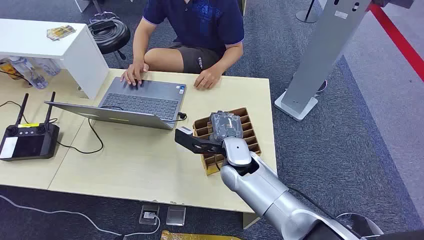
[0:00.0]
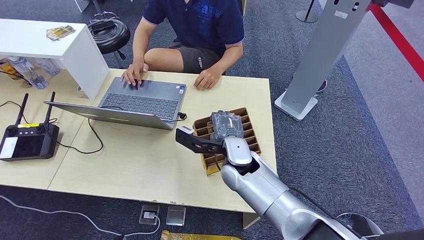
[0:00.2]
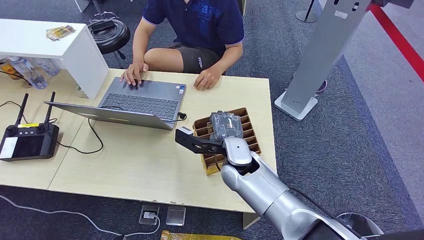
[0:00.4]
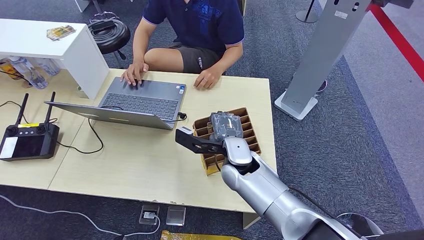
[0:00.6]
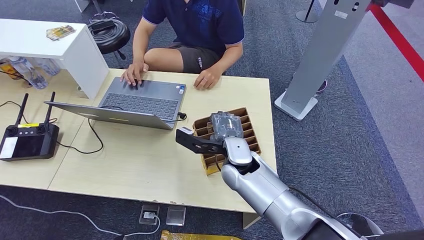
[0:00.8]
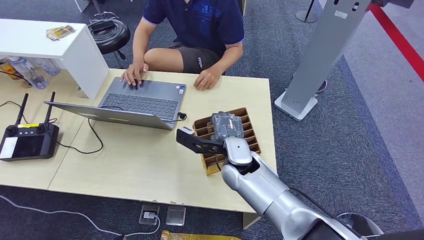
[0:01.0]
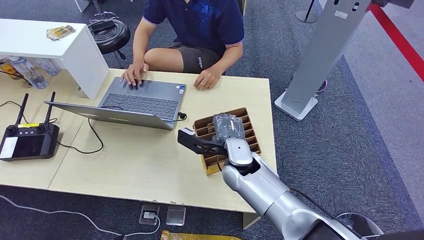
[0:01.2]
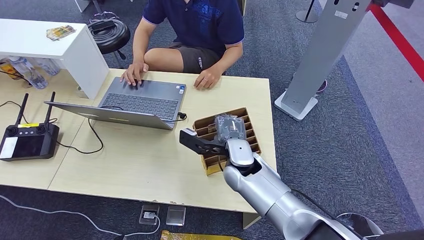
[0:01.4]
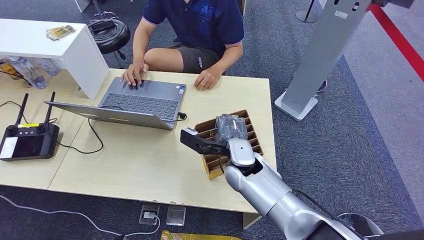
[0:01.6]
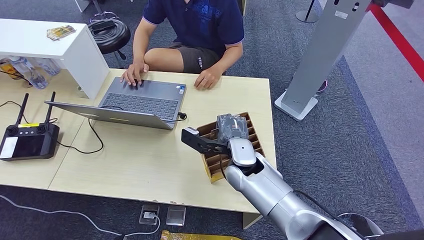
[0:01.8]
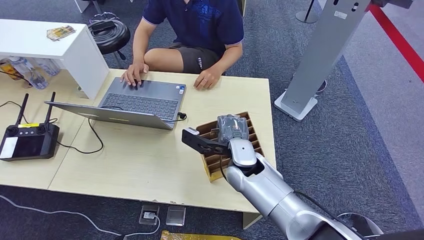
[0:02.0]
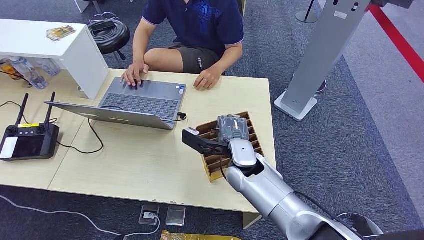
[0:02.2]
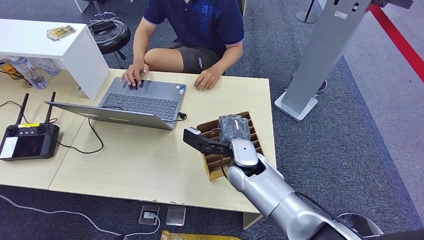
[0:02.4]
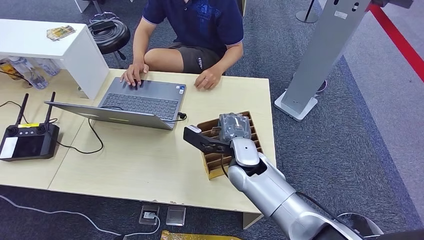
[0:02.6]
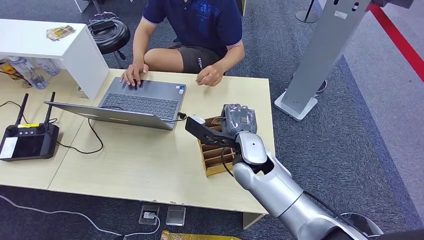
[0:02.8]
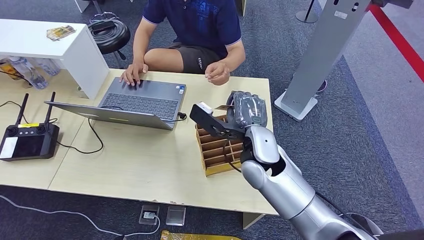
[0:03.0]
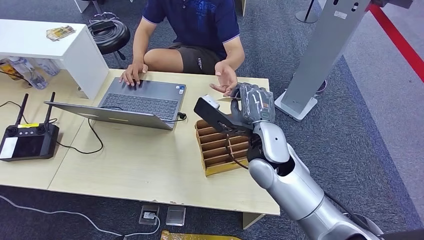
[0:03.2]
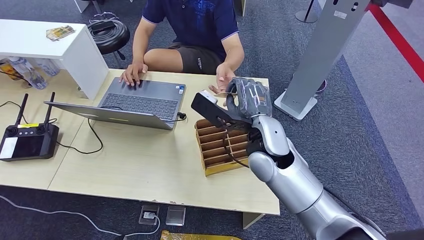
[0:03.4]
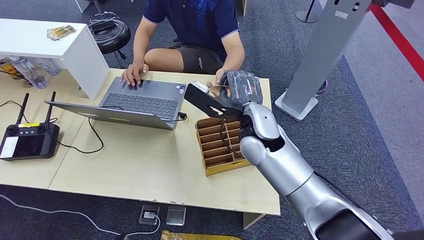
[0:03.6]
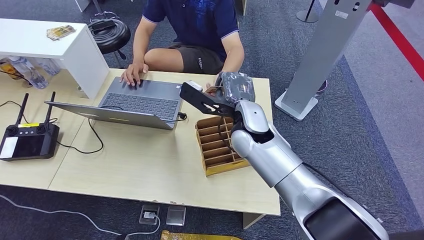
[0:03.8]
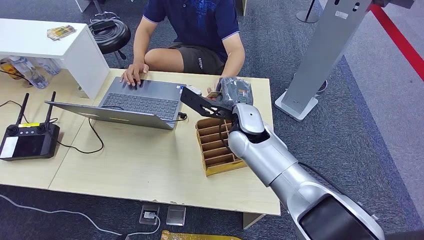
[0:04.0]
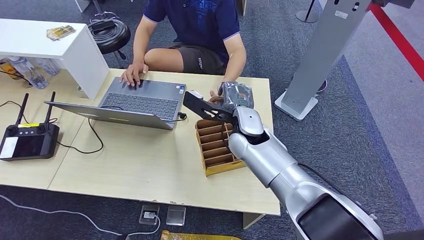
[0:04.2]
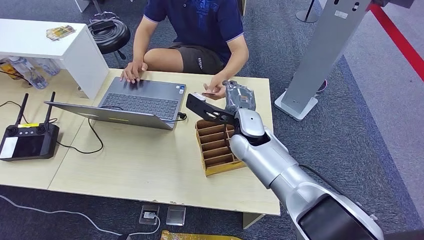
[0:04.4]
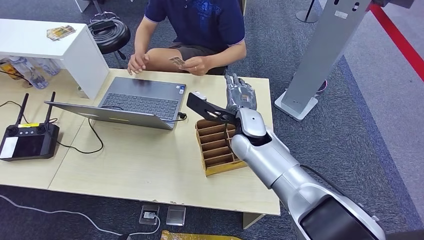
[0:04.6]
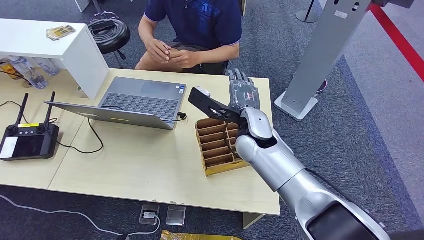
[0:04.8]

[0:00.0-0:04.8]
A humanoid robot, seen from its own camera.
Step, 0:00.0 to 0:02.8: Pick up the key card from the card box.
Step, 0:03.2 to 0:04.8: Hand the key card to the target.
0:01.6 to 0:03.2: The right hand travels upward by roughly 10 cm.
0:03.2 to 0:04.8: The right hand moves forward, about 5 cm.

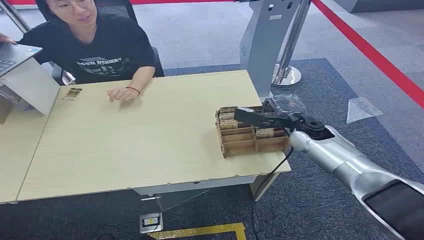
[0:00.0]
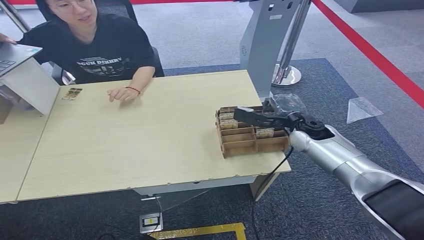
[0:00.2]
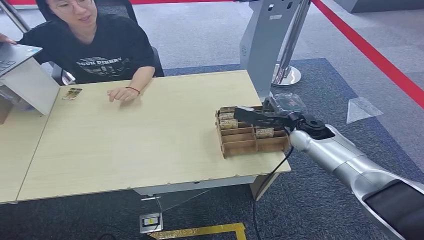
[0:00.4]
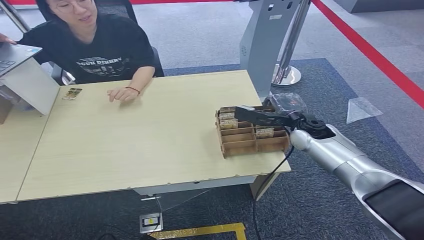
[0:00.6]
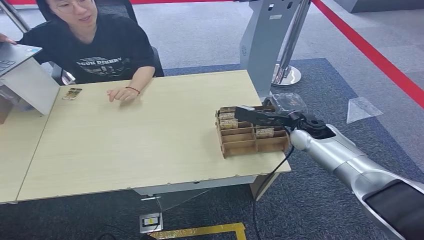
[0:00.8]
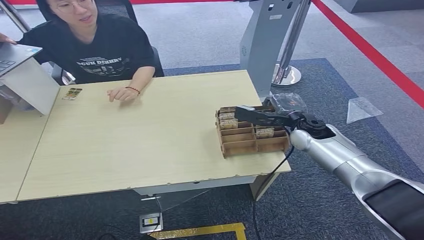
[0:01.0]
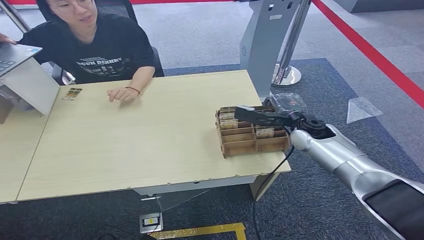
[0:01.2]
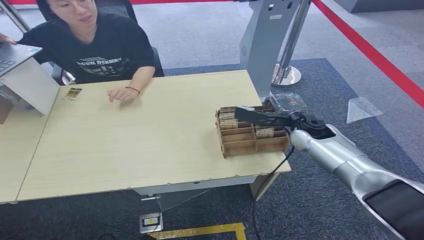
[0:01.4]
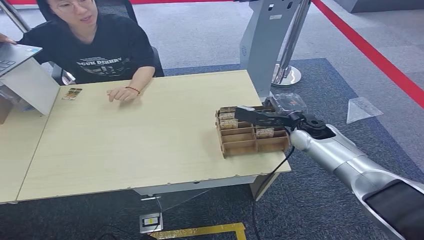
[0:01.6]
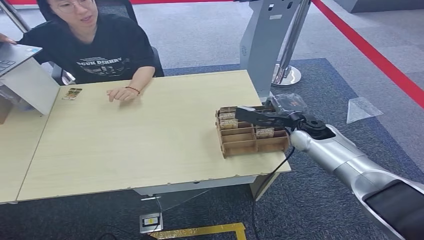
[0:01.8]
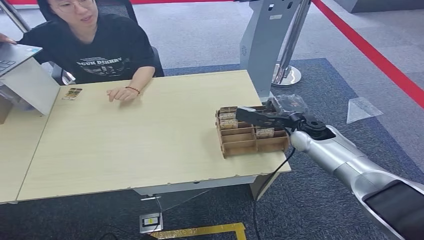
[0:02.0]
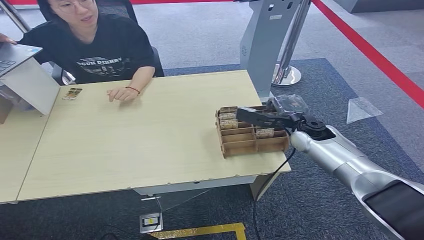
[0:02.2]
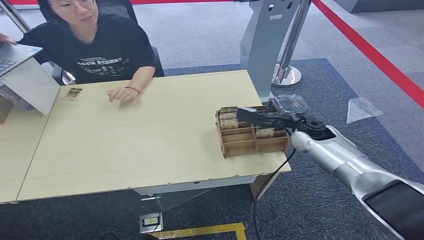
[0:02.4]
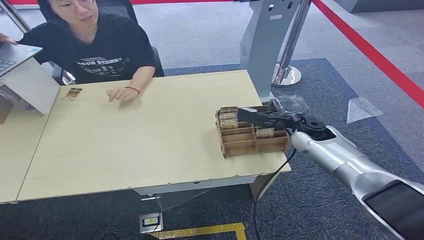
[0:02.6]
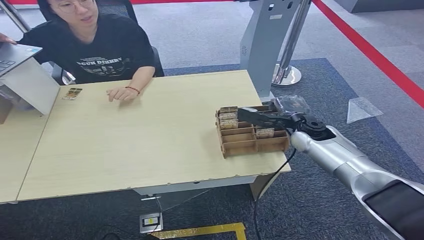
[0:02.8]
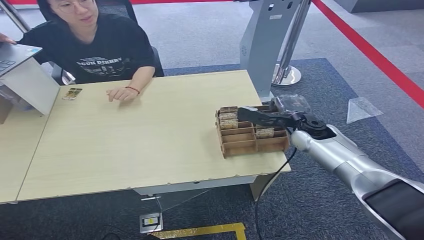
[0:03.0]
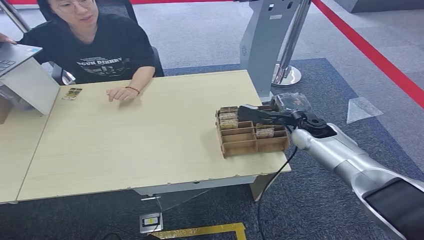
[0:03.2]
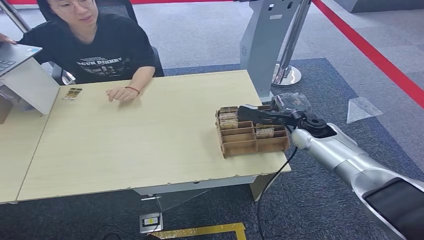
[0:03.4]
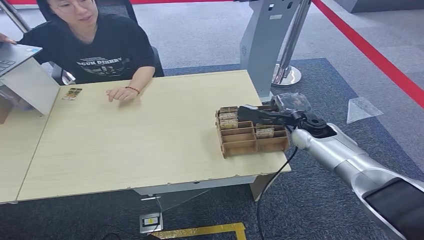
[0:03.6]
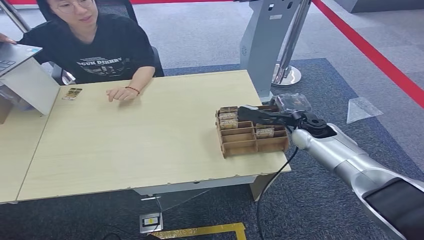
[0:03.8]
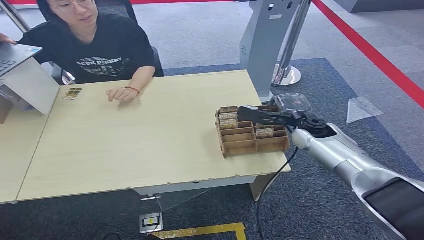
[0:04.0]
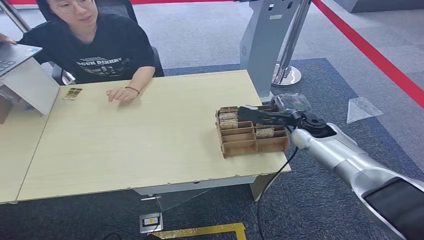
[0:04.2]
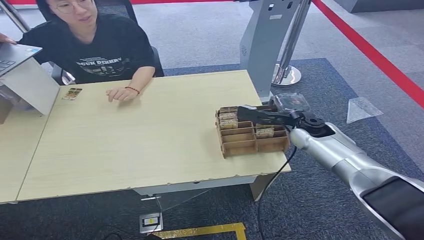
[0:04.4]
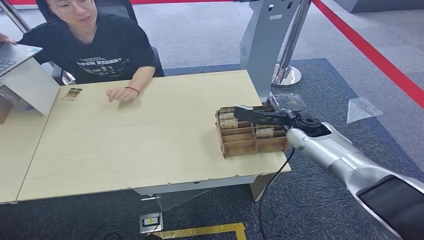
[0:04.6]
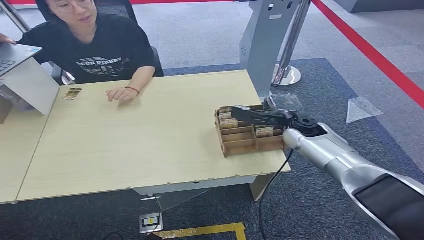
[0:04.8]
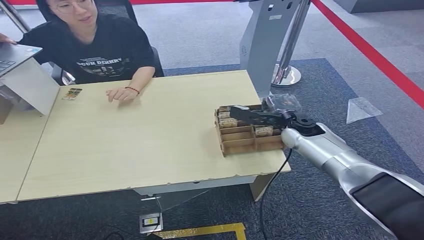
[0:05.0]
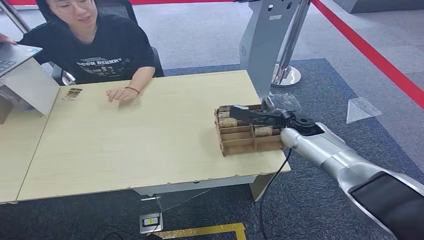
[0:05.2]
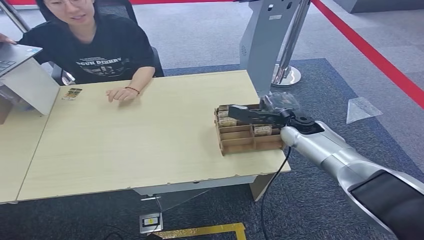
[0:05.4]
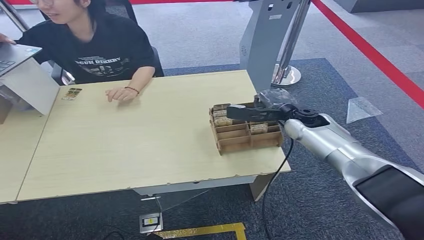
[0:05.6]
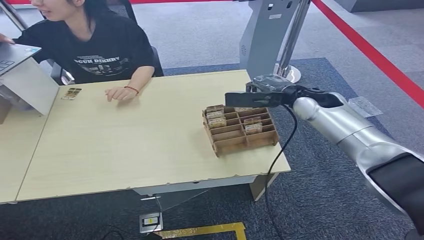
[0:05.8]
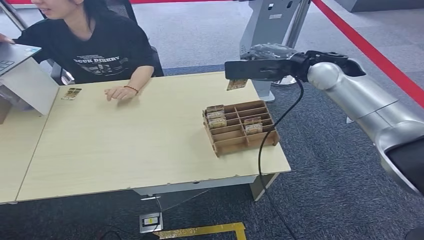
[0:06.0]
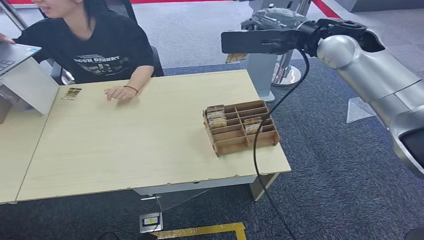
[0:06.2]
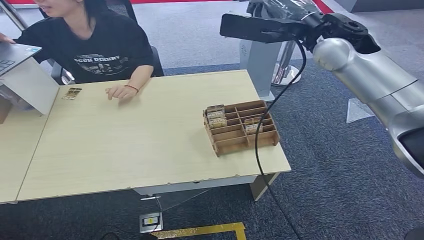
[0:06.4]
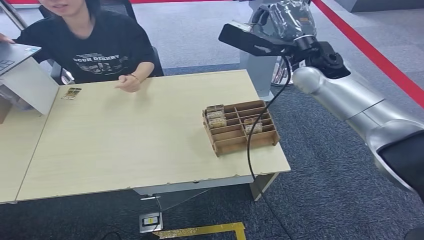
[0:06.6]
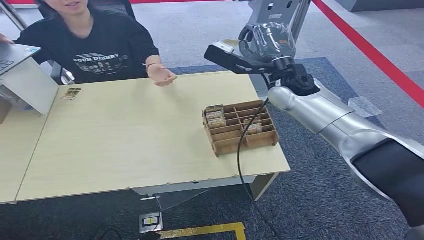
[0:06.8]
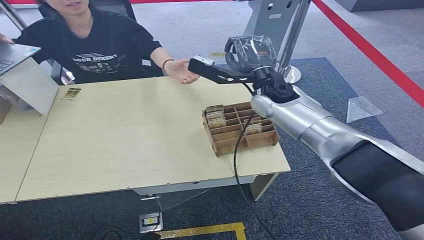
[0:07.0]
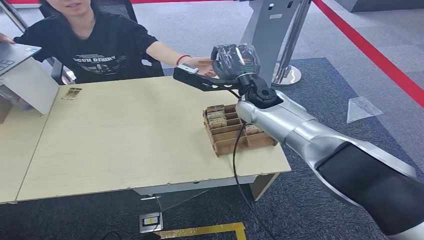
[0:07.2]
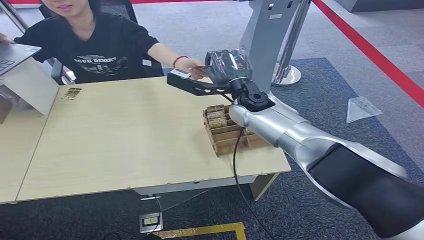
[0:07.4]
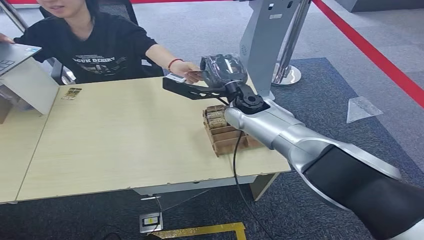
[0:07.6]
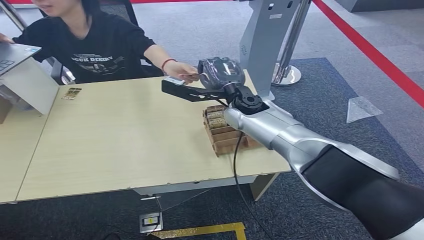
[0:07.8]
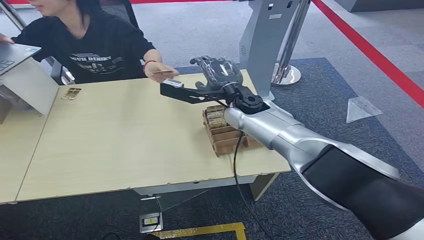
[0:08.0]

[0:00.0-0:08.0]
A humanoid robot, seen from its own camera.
Step, 0:00.0 to 0:05.8: Pick up the key card from the card box.
Step, 0:06.0 to 0:08.0: Hand the key card to the target.
0:01.6 to 0:04.8: The hands stay close to where they were, moving slightly.
